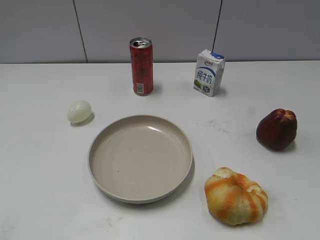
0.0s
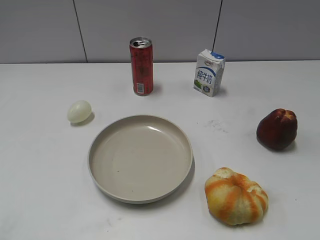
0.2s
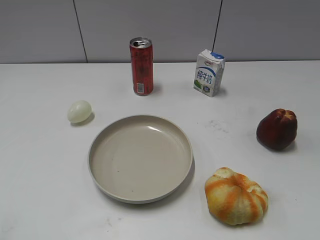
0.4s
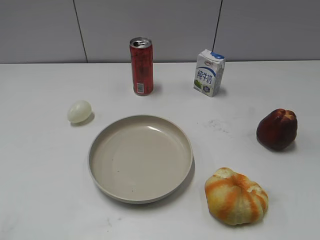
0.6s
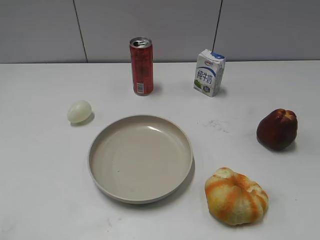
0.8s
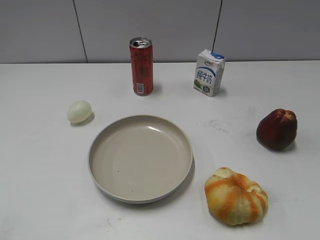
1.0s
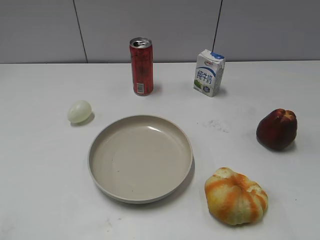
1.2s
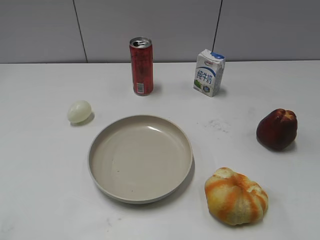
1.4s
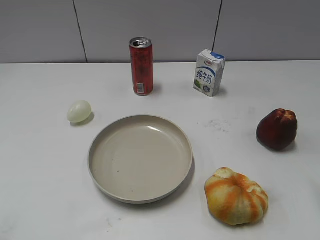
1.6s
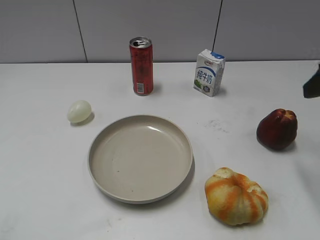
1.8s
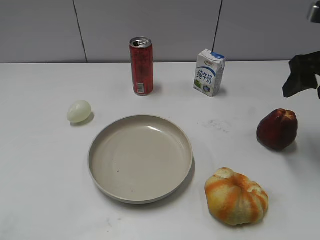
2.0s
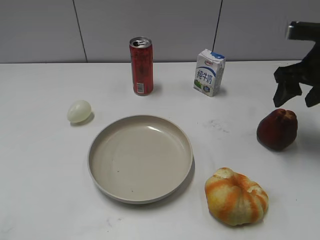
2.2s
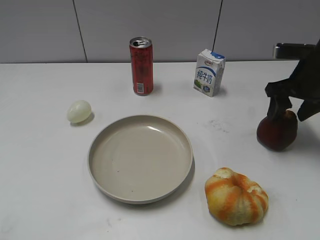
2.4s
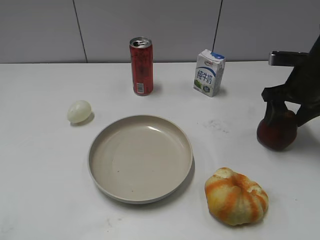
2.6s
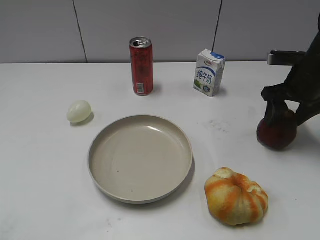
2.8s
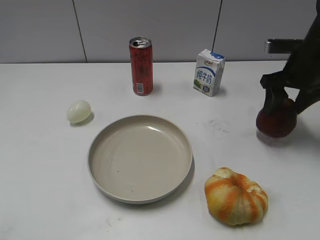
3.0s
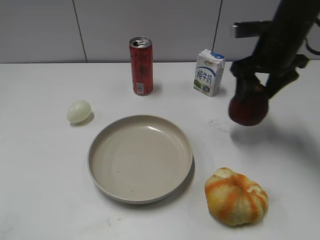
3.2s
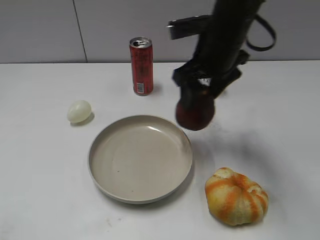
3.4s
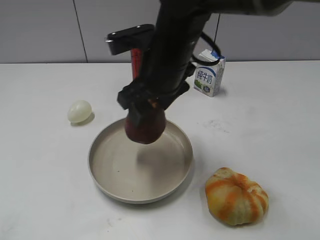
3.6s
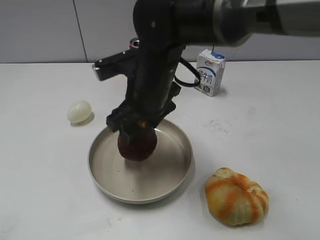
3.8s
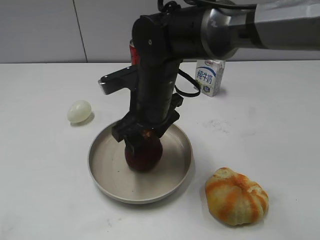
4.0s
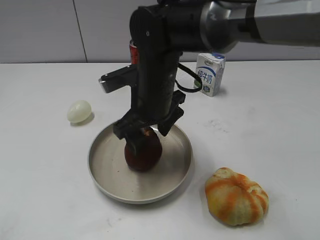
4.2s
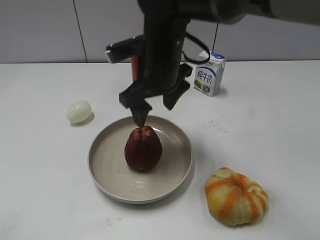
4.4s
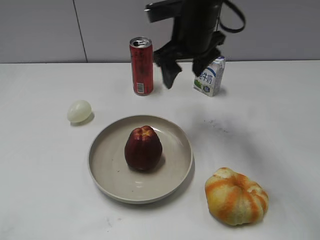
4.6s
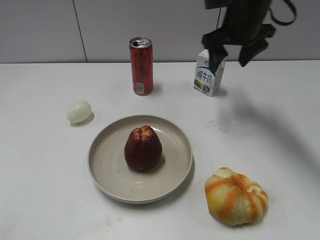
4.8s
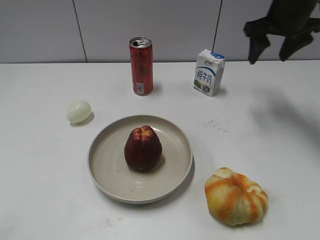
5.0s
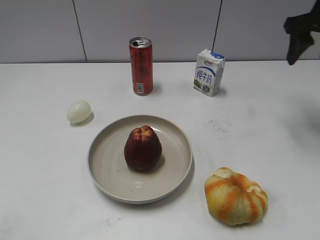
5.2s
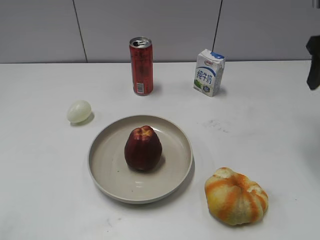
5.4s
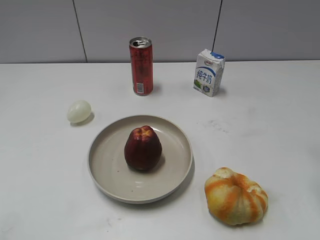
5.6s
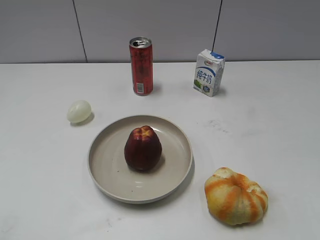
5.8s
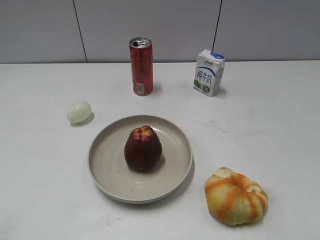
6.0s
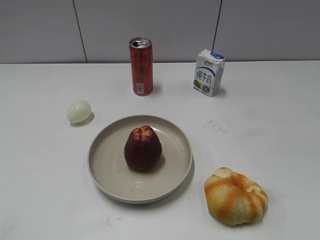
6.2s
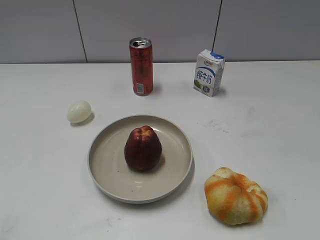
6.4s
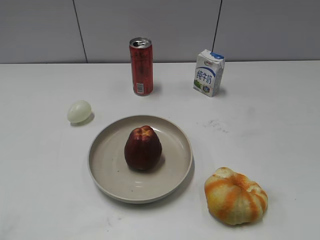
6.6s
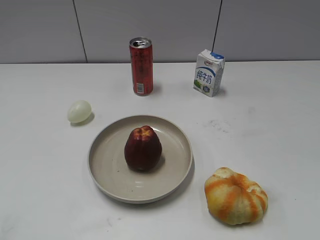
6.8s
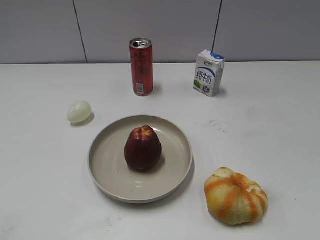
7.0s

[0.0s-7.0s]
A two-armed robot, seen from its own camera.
Step, 0.8s to 2.8s: Grasp the apple with right gripper.
Step, 3.0s to 4.4s: Place the apple on the plate with right gripper.
1.4s to 2.8s: The right gripper travels forward and downward by some 30 cm, and closes its fingers.
2.8s to 4.2s: The right gripper moves to the left, some 30 cm, and opens up.
4.2s to 5.6s: The right gripper moves to the right, approximately 30 cm, and closes its fingers.
